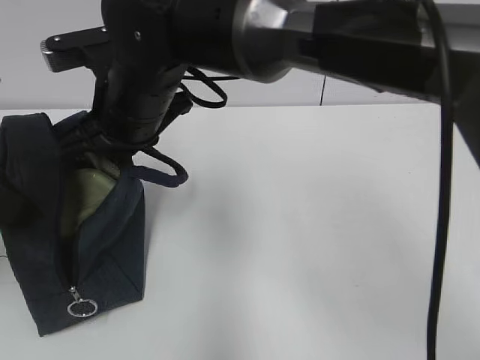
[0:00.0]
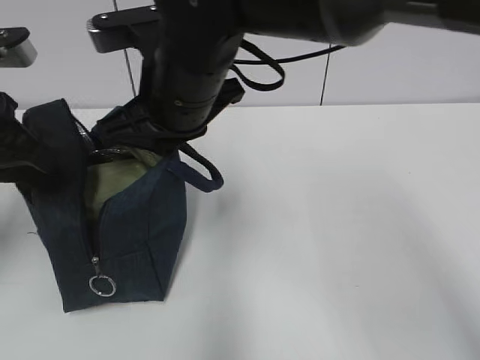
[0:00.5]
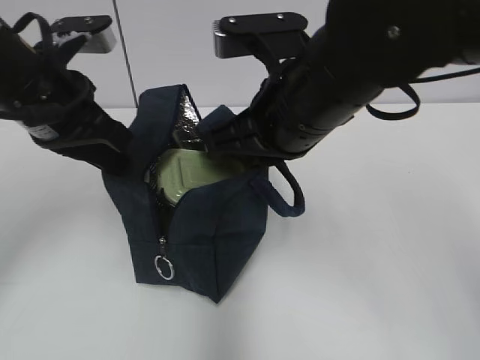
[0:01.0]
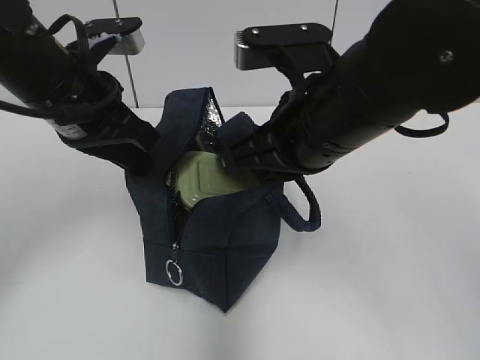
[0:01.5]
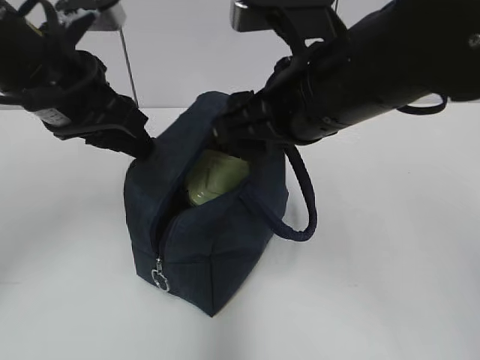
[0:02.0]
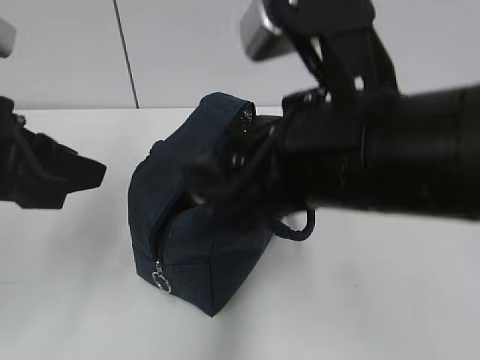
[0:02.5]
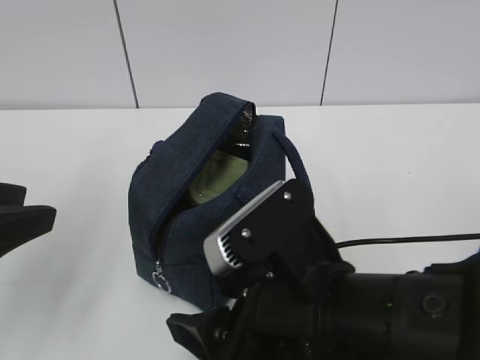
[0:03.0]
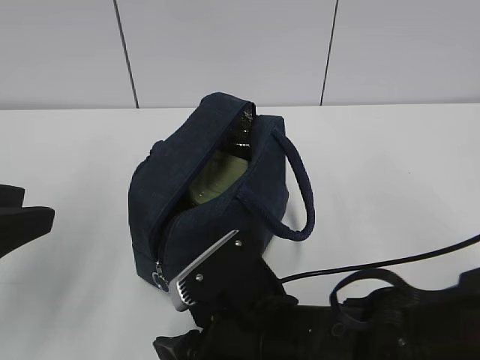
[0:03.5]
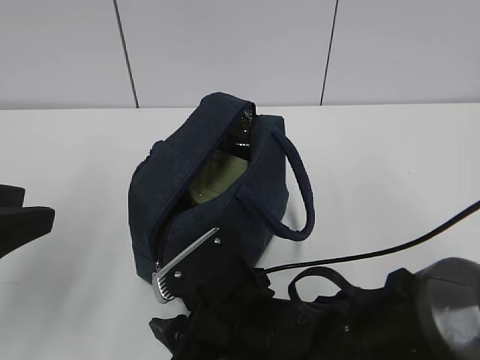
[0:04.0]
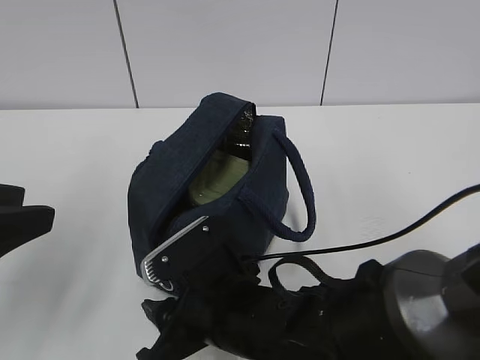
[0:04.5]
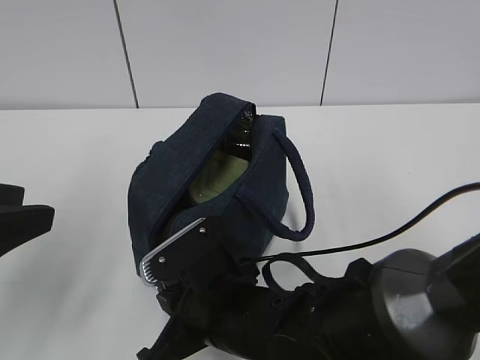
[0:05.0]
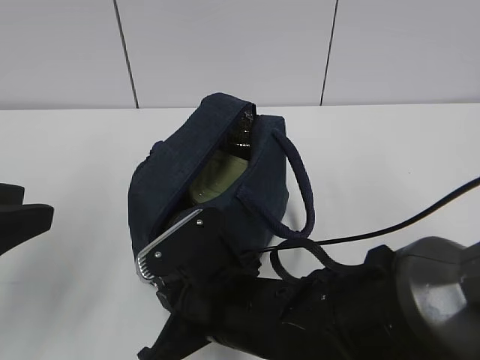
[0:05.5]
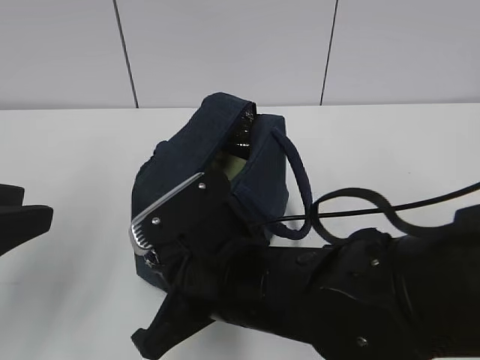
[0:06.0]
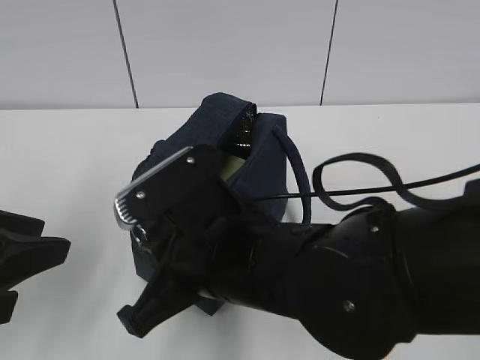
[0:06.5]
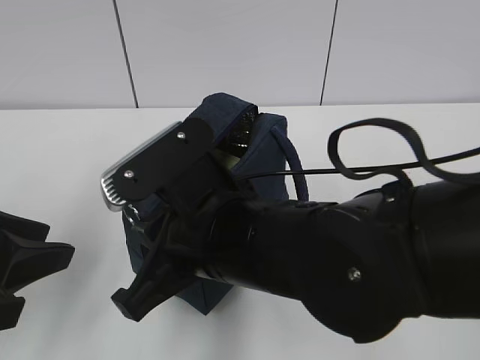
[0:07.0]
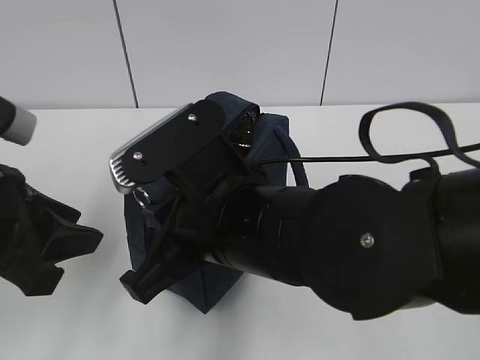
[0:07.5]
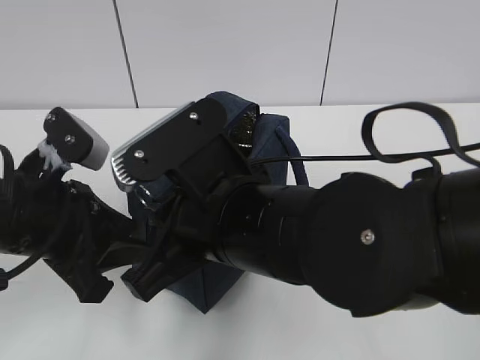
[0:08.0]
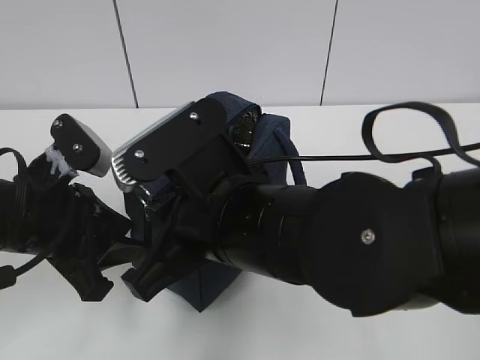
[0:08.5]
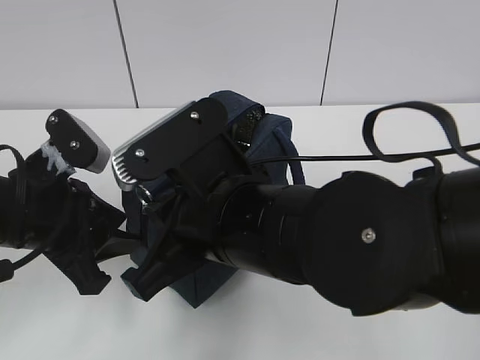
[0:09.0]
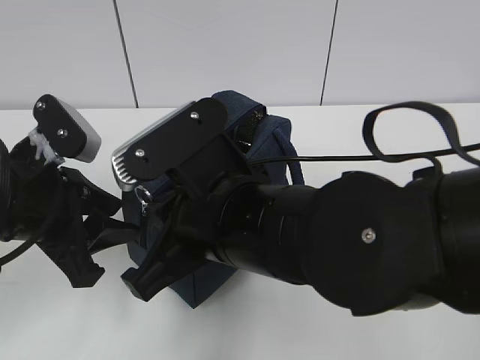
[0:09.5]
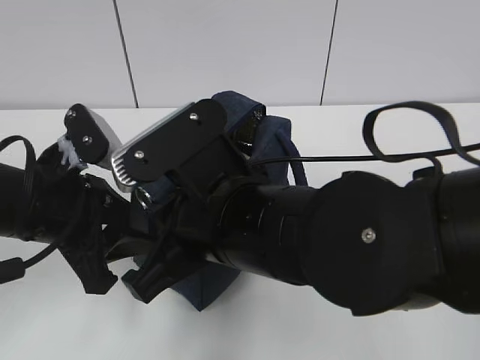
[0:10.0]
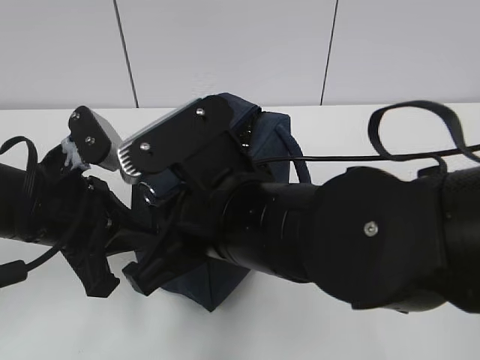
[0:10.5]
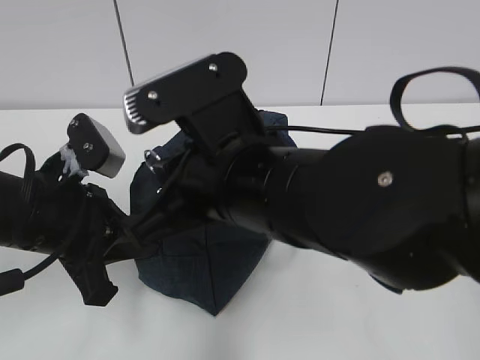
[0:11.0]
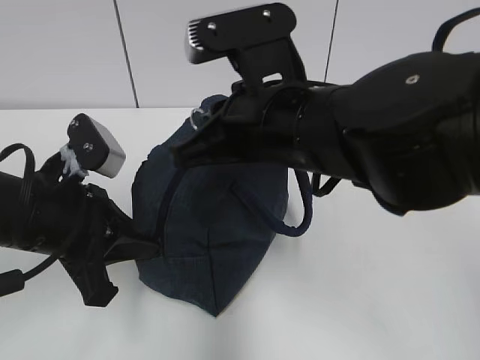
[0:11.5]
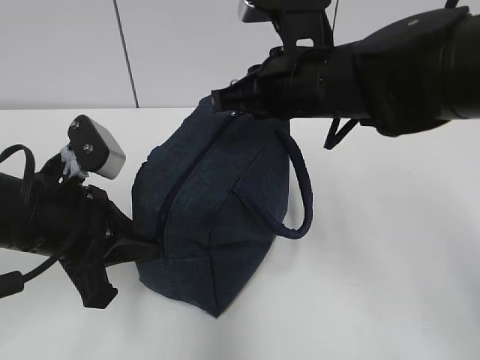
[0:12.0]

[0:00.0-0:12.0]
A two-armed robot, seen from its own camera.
0:00.0 to 0:02.0: The right gripper shifts approximately 15 cm to the right and backward, and opens up. The left gripper is displaced to the right and forward by about 10 cm, and opens.
0:02.0 to 0:04.0: The right gripper travels downward by about 20 cm. The left gripper is displaced backward and to the left by roughly 15 cm.
0:04.0 to 0:06.0: The right gripper is displaced upward by approximately 5 cm, and closes its fingers.
0:06.0 to 0:08.0: The right gripper travels upward by some 5 cm, while the left gripper goes some 10 cm forward, downward and to the right.
0:08.0 to 0:10.0: The grippers move only a little.
0:10.0 to 0:12.0: The right gripper shifts about 15 cm forward and to the right, while the left gripper closes its fingers.

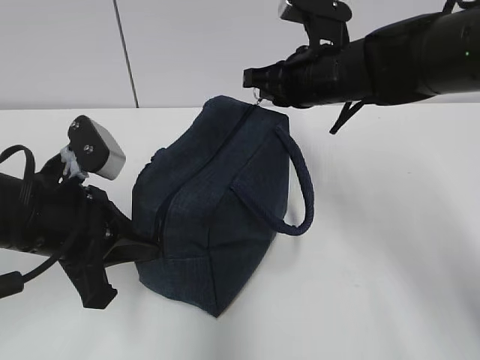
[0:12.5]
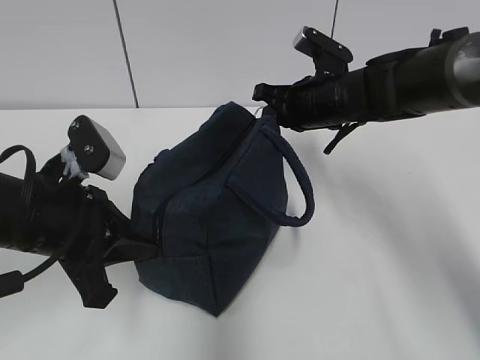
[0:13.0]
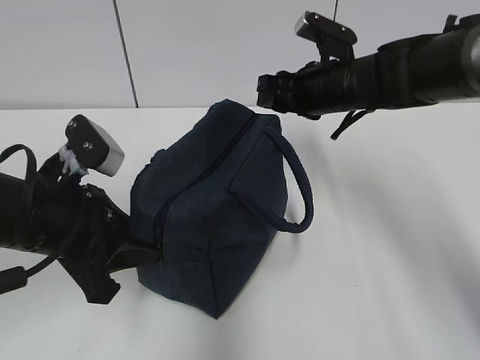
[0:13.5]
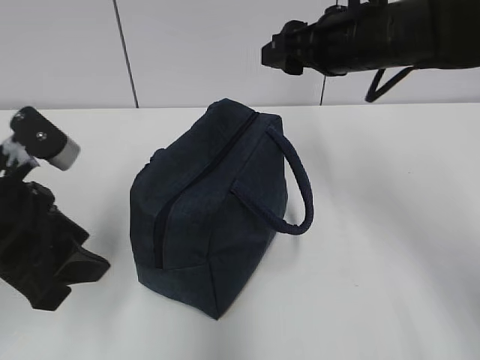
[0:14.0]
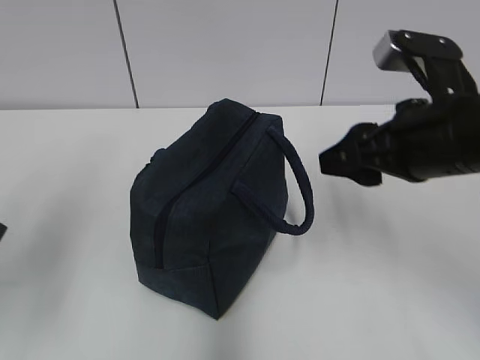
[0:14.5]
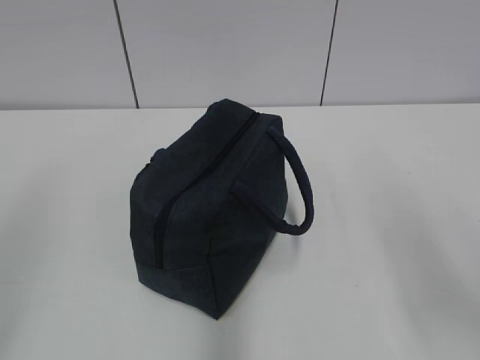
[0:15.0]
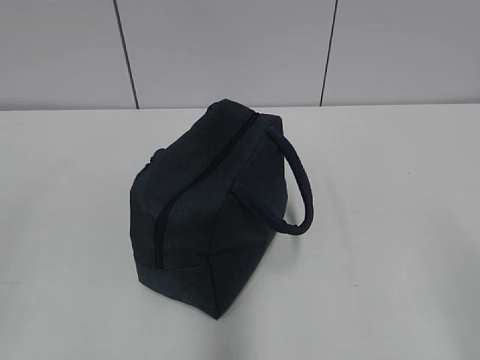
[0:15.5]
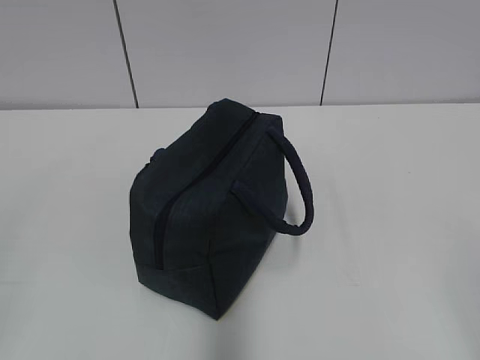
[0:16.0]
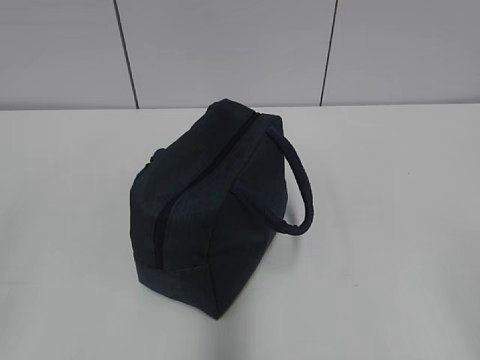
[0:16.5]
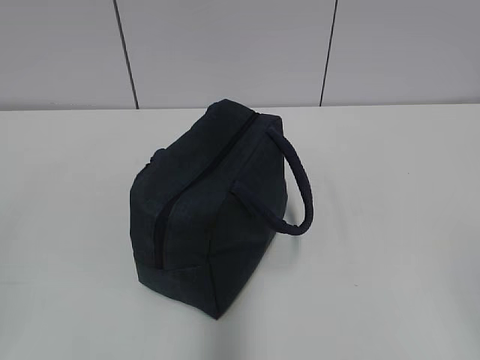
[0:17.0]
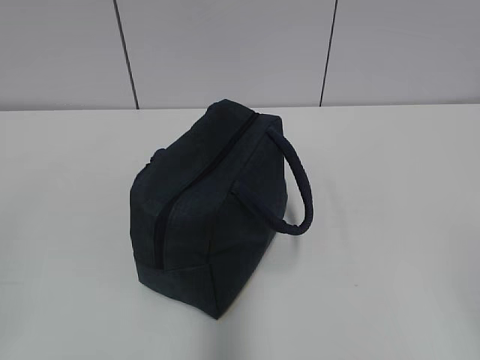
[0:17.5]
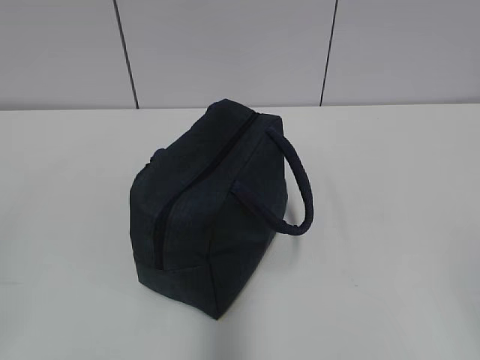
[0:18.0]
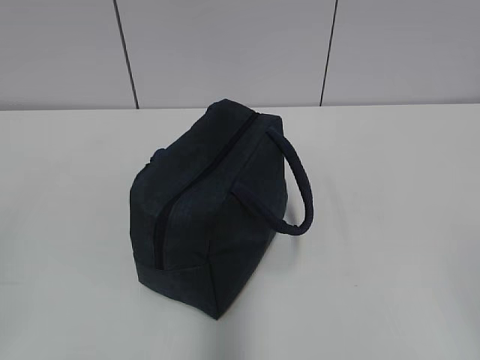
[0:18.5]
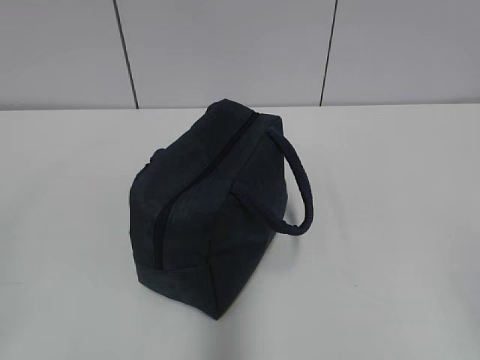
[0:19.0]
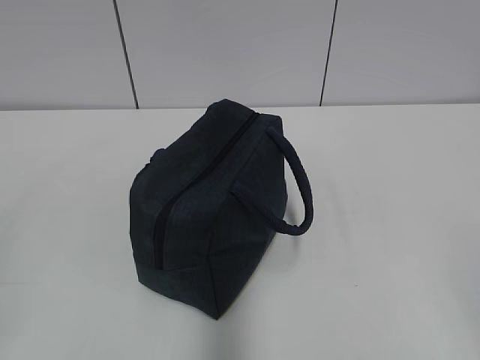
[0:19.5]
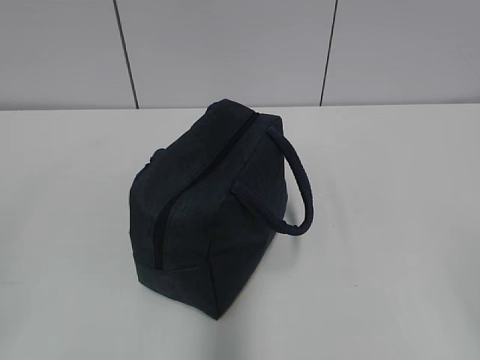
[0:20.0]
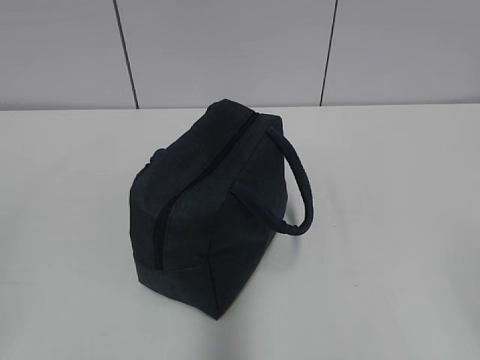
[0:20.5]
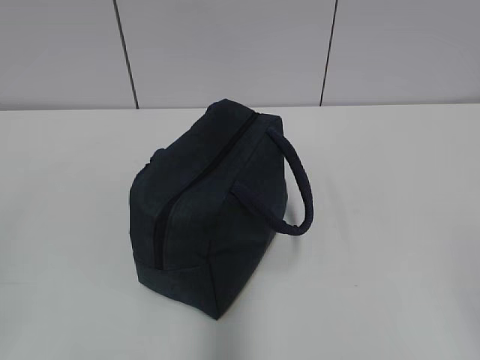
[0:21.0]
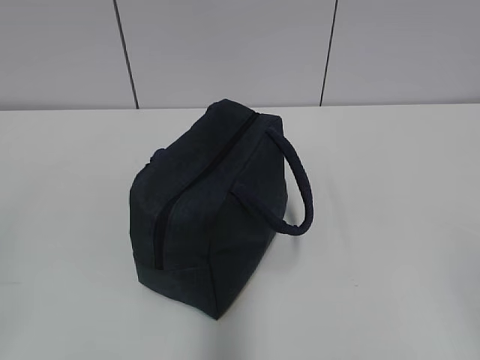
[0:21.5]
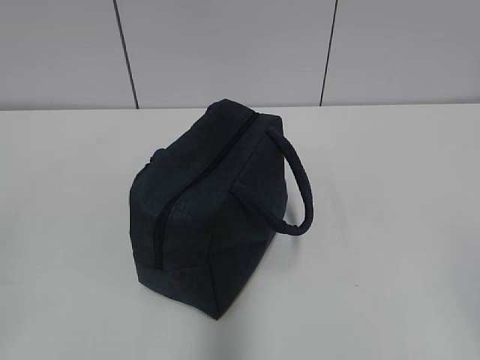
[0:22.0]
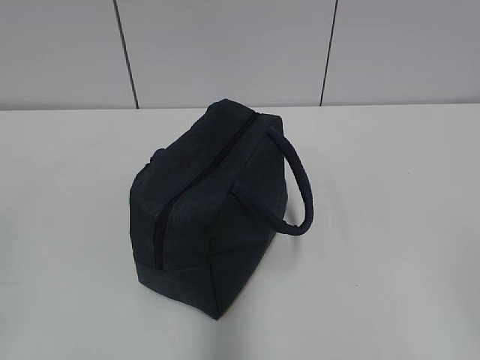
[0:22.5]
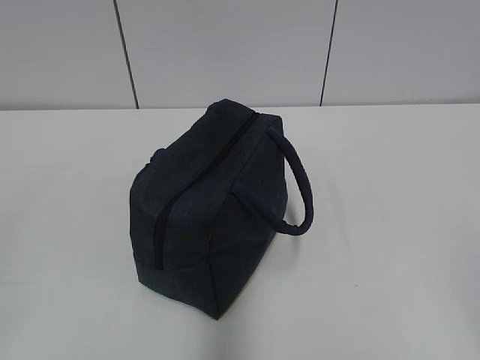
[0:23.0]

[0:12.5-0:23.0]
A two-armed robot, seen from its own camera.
0:12.5 to 0:14.5: The right gripper is displaced backward and to the right by some 15 cm, and opens up, while the left gripper heads upward, to the left and backward, covering about 15 cm, and opens its fingers.
0:14.5 to 0:16.5: The right gripper moves backward, roughly 25 cm. The left gripper goes approximately 15 cm backward.
0:19.0 to 0:23.0: Both grippers stay about where they are.
